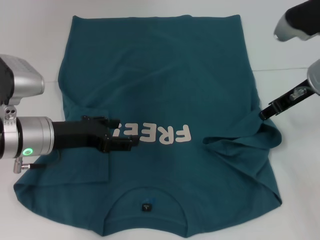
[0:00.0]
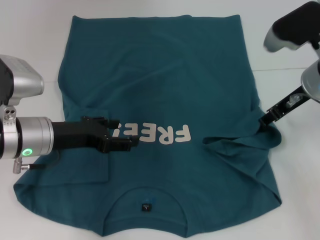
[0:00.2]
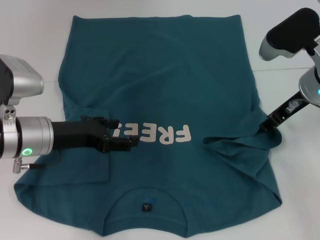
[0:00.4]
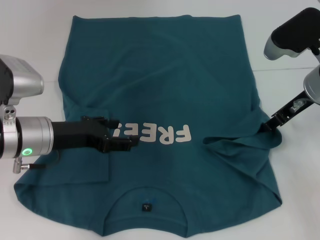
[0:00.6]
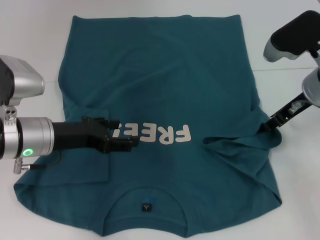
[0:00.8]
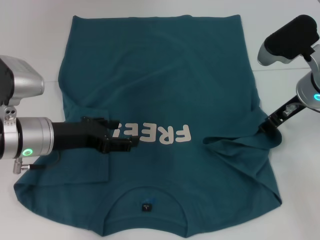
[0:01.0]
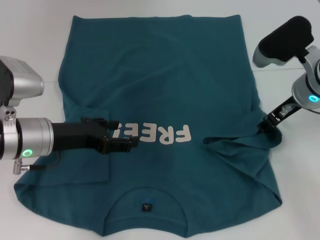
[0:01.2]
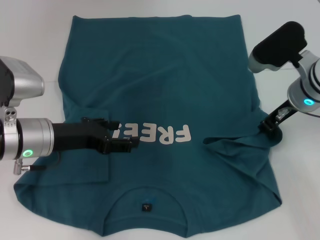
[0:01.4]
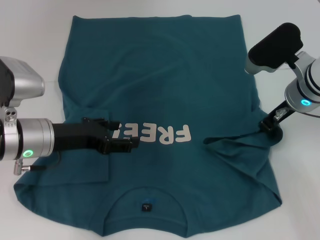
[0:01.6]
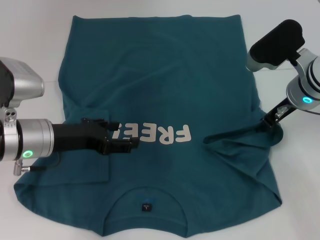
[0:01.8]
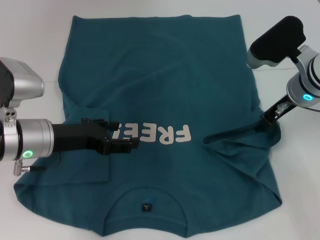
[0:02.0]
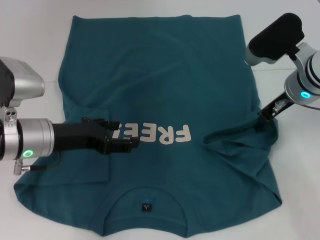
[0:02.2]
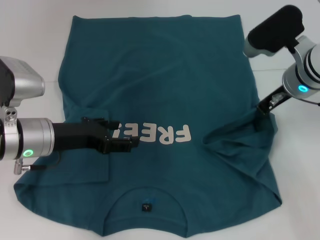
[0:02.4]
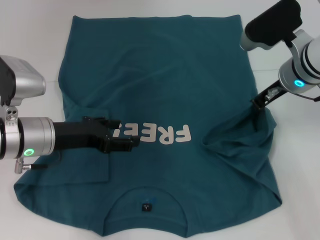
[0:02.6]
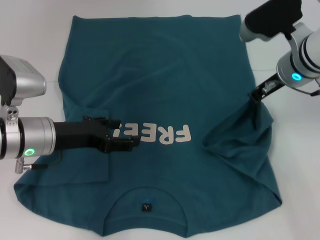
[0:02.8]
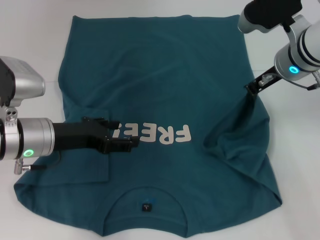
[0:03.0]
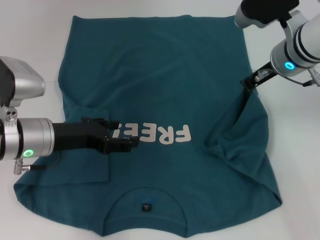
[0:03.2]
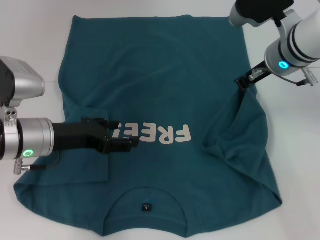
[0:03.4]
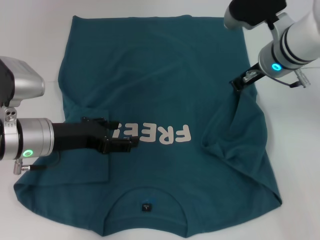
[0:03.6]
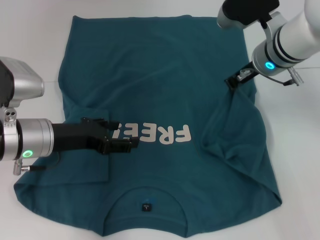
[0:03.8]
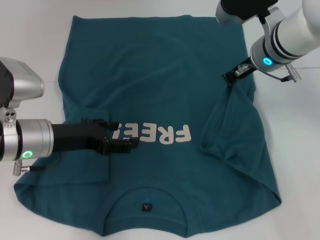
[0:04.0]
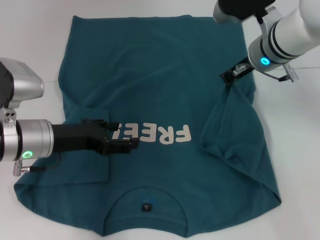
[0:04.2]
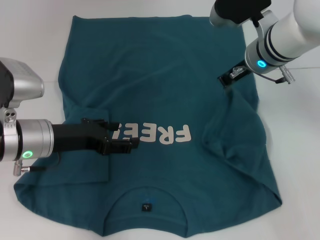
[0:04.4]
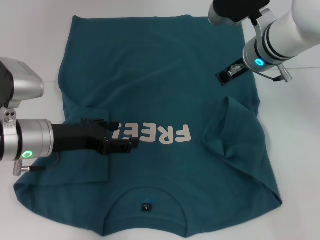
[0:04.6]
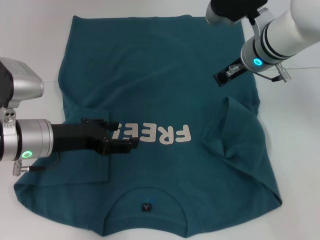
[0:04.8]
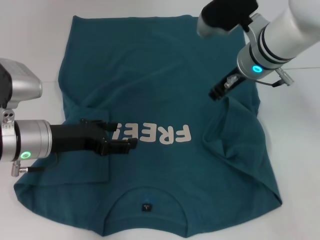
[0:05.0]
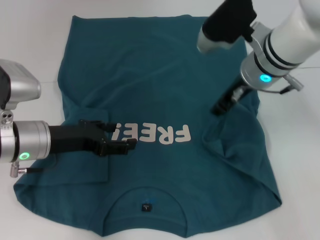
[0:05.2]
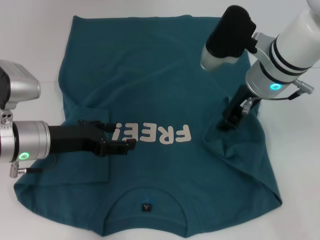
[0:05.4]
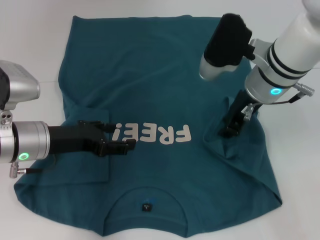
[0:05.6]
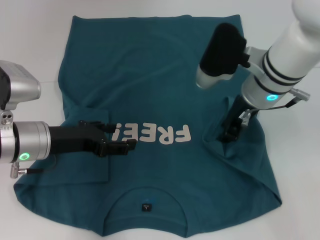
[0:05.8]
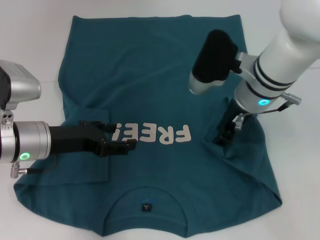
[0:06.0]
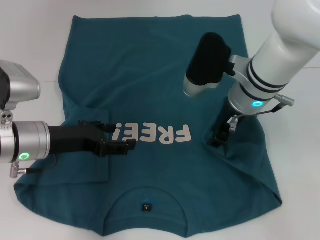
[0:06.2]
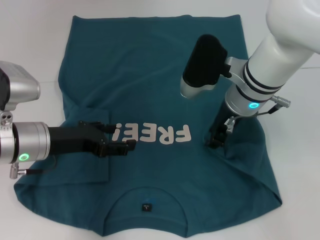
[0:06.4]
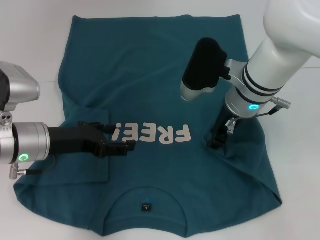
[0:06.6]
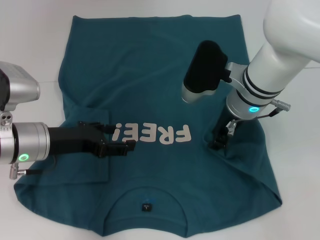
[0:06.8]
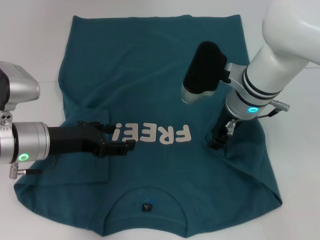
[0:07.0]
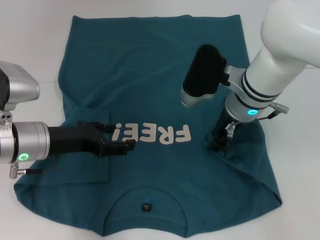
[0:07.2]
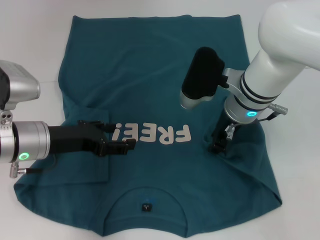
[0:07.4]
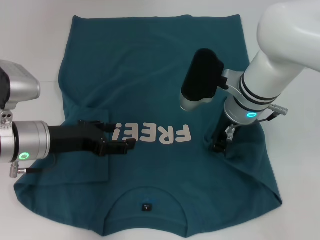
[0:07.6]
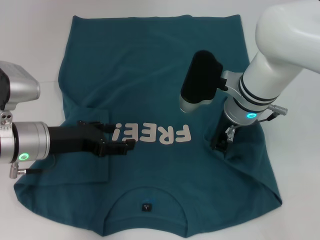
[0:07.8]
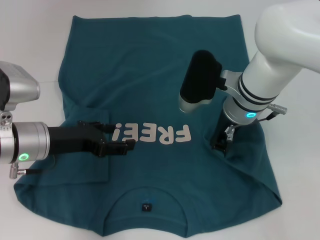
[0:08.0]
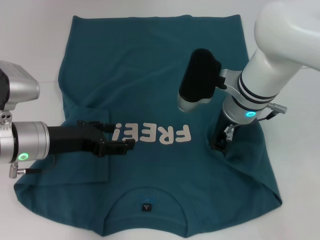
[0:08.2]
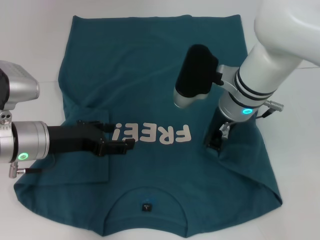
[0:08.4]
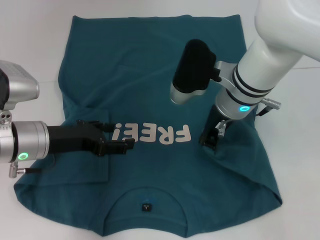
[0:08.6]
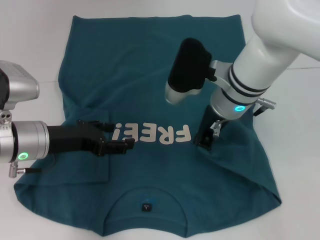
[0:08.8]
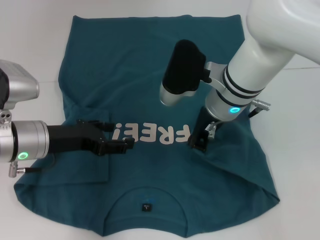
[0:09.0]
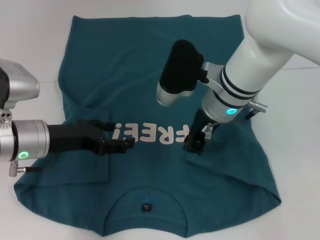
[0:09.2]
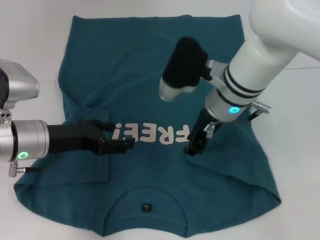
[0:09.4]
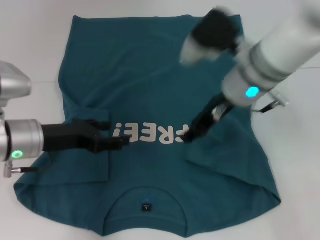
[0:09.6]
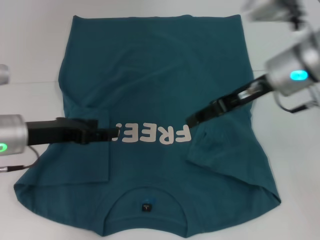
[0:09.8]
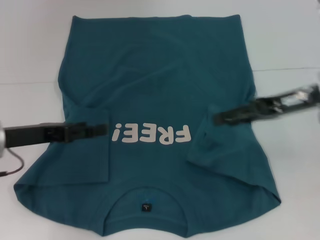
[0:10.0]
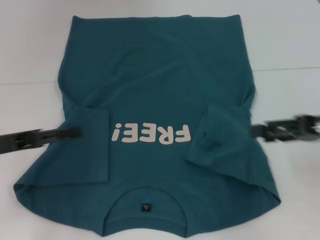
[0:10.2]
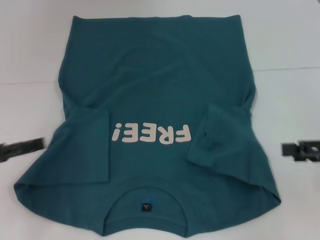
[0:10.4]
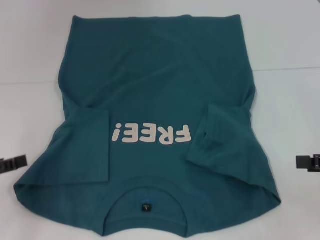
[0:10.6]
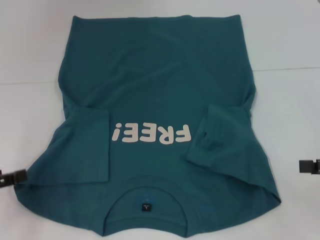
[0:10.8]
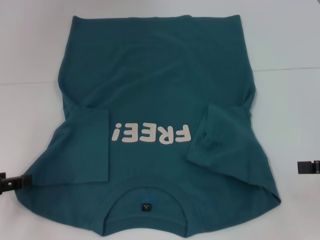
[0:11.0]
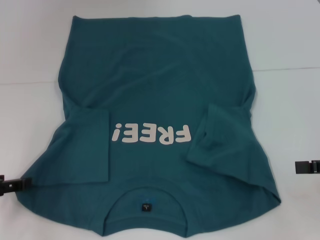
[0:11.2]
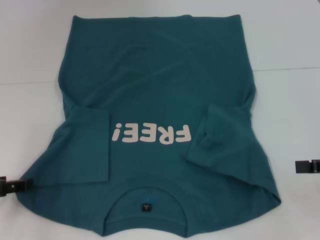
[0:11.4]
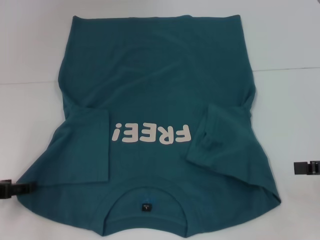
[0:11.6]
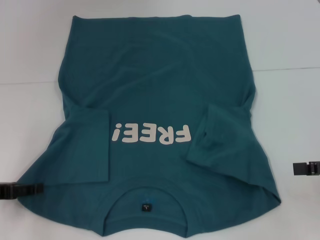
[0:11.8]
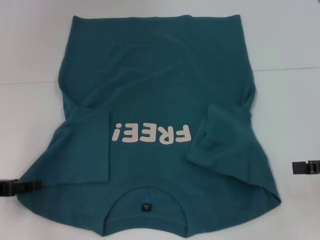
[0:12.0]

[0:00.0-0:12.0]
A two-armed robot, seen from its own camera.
Step, 0:00.0 to 0:09.8: Fold the bottom right sleeve to the right.
0:00.0 to 0:01.6: The grippers make only small movements.
0:01.6 to 0:03.0: The right gripper closes up.
0:03.0 to 0:04.4: The grippers move only a little.
0:04.4 to 0:06.0: The right gripper changes place by some 5 cm, and opens up.
0:06.0 to 0:07.6: The grippers make only small movements.
0:07.6 to 0:09.0: The right gripper closes.
0:09.0 to 0:10.4: The right gripper moves to the right and backward, about 30 cm, and opens up, while the left gripper goes roughly 15 cm to the left and backward.

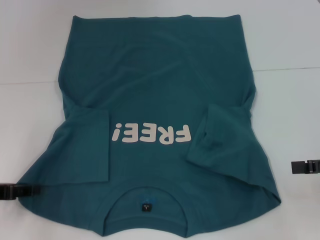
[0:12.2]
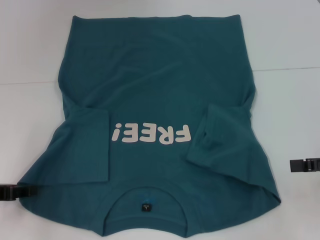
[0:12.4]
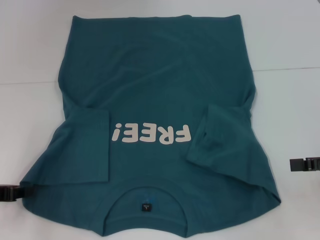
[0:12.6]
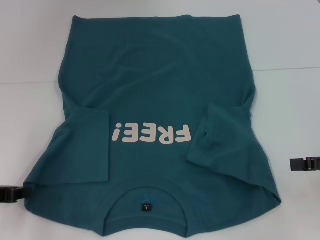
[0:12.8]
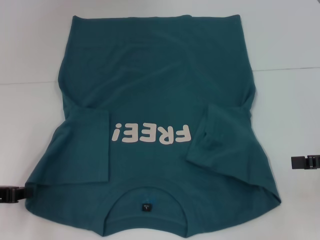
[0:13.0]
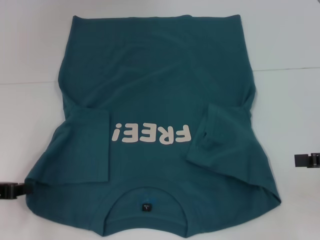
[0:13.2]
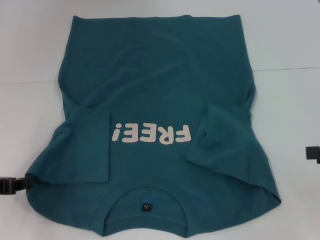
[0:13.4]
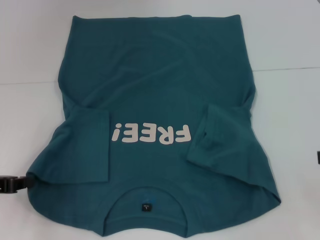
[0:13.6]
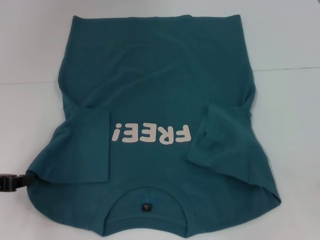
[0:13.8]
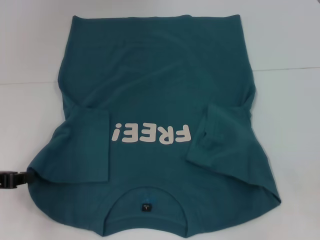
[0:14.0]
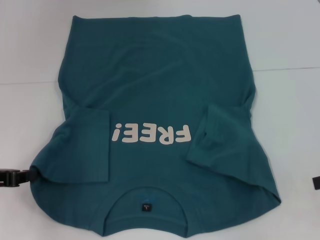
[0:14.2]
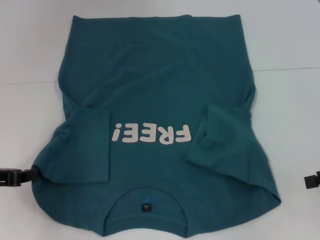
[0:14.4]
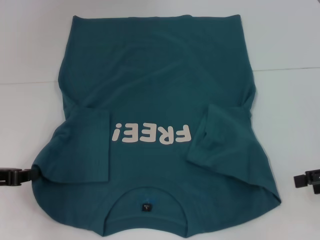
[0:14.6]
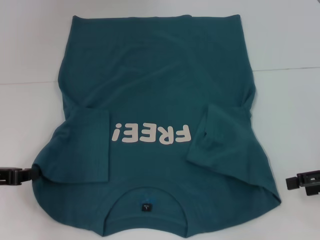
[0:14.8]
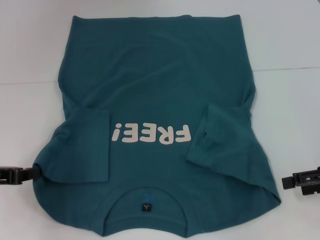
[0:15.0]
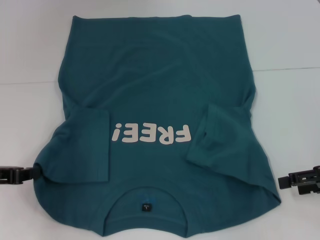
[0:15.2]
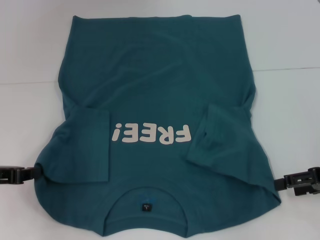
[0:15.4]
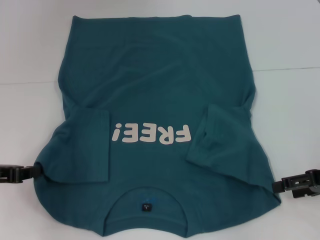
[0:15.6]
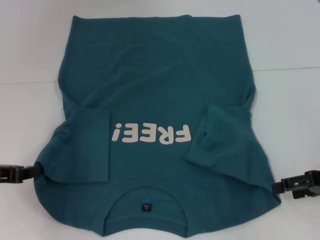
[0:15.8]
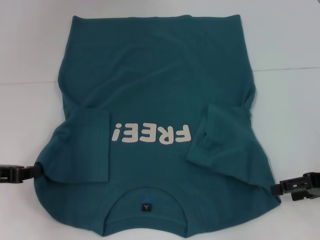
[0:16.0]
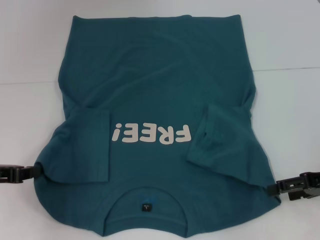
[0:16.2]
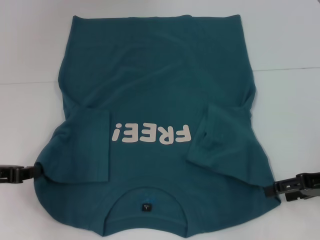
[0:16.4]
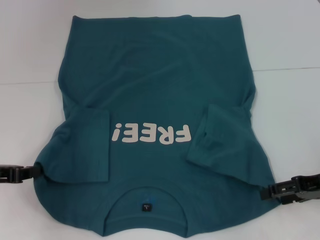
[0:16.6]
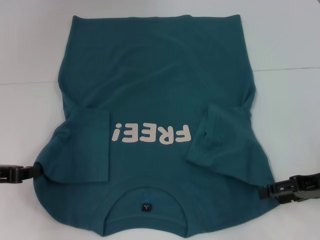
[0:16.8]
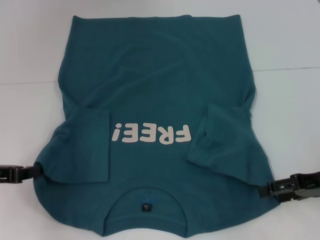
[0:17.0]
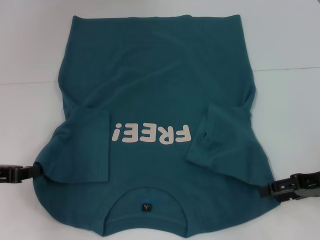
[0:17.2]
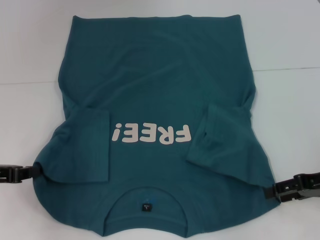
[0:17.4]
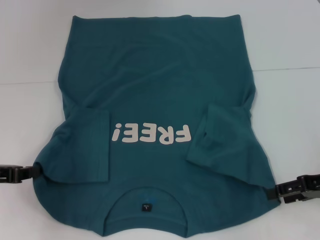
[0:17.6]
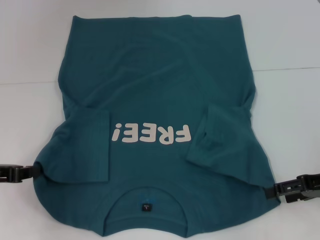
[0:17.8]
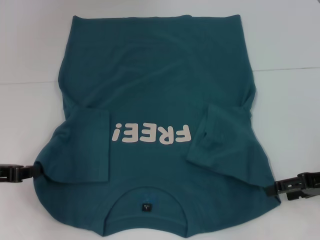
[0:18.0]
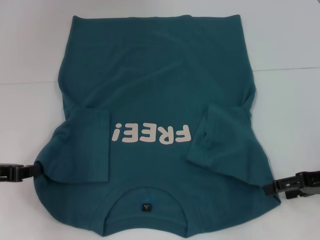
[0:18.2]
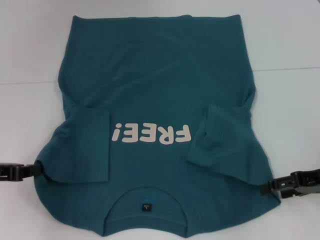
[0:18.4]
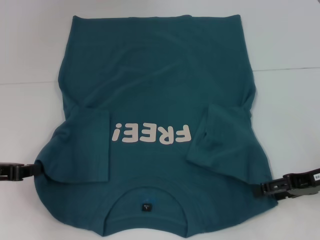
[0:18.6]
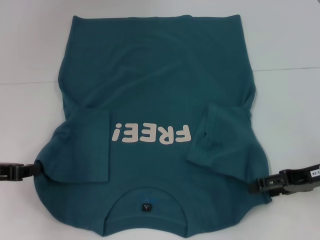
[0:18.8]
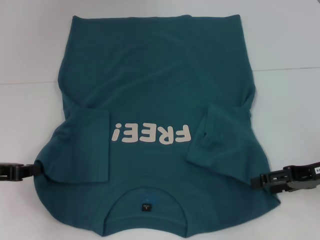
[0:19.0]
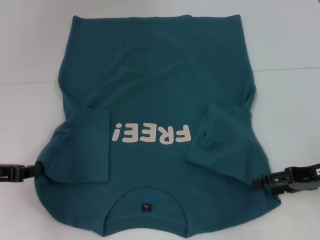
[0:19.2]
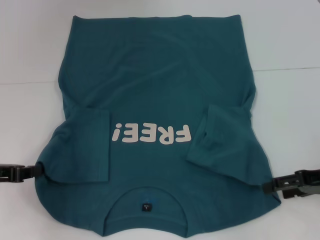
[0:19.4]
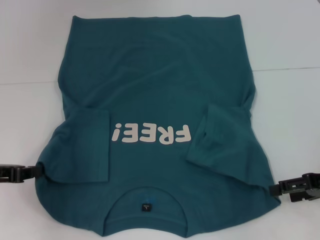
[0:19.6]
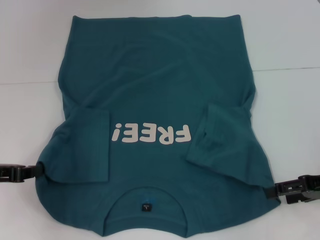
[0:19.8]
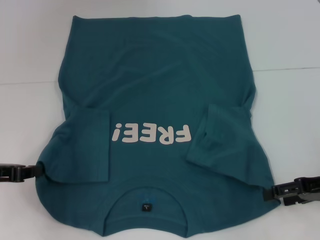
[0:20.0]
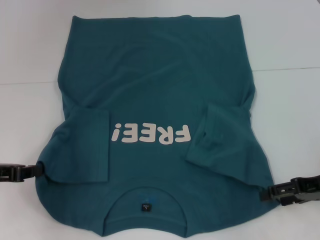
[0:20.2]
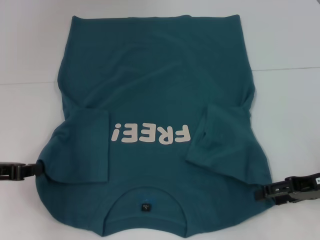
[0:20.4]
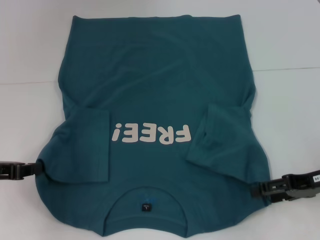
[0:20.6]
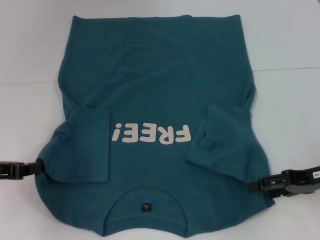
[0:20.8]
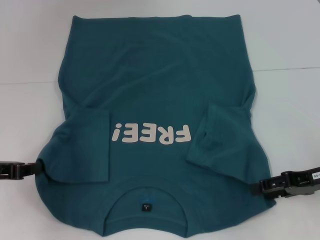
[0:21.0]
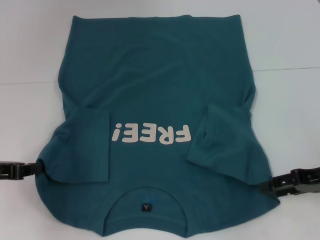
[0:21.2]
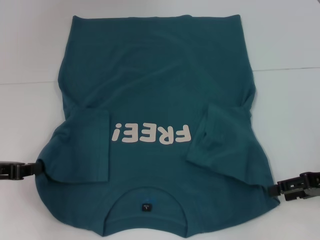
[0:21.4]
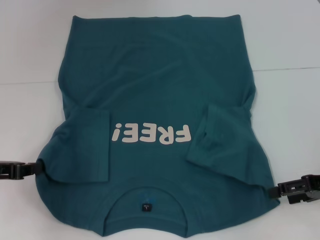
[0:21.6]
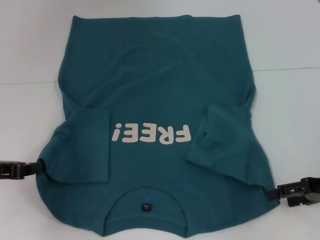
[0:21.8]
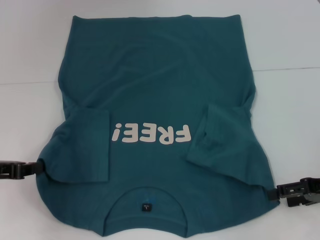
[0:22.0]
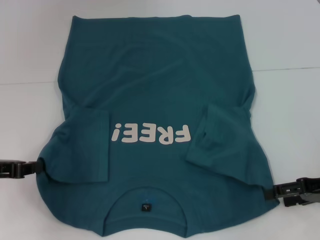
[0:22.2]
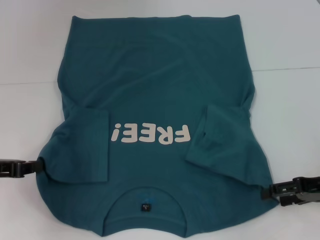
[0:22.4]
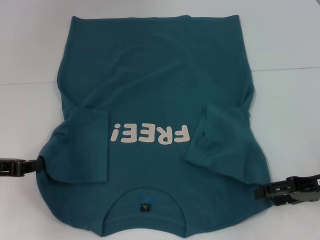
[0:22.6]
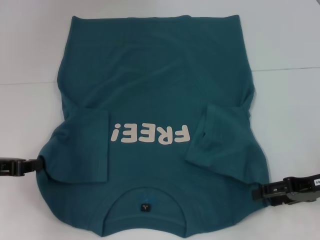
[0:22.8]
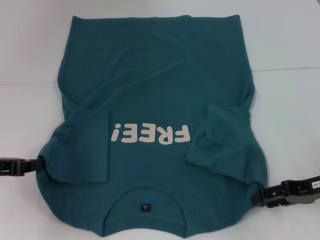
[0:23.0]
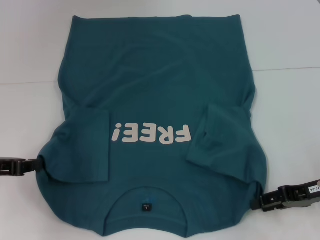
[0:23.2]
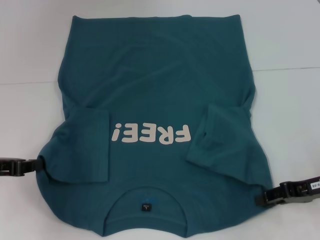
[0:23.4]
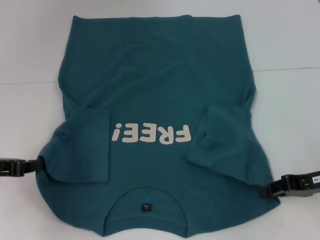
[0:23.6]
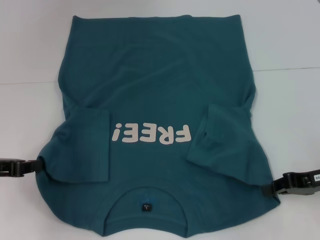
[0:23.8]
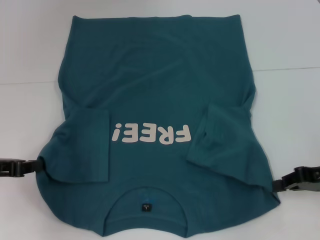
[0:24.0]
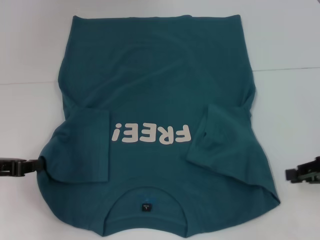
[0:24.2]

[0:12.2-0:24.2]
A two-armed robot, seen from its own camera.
0:12.2 to 0:13.8: The left gripper closes its fingers.
0:13.8 to 0:15.2: The right gripper shifts about 10 cm downward and to the left.
0:15.2 to 0:16.6: There are only small adjustments of the grippers.
0:16.6 to 0:18.2: Both grippers stay put.
0:18.2 to 0:22.6: There are only small adjustments of the grippers.
0:22.6 to 0:24.2: The right gripper closes up.
